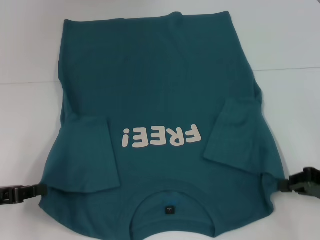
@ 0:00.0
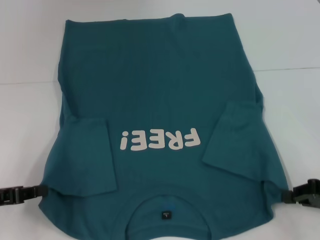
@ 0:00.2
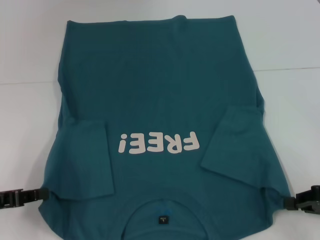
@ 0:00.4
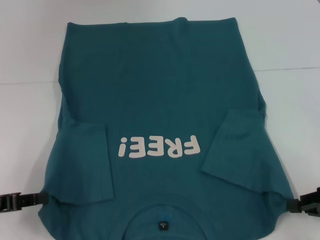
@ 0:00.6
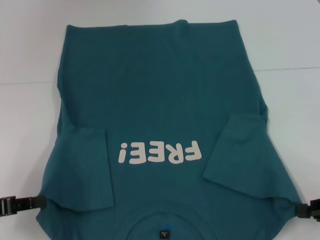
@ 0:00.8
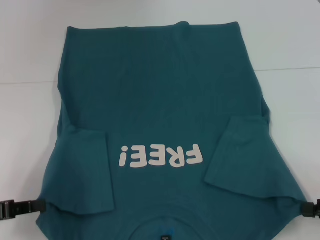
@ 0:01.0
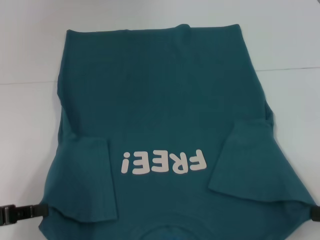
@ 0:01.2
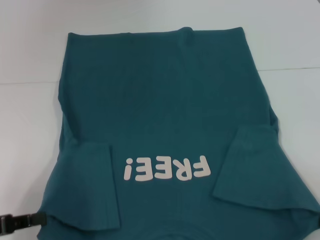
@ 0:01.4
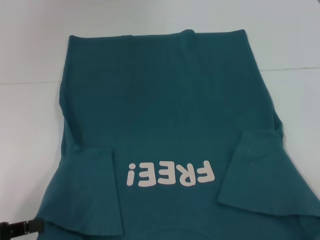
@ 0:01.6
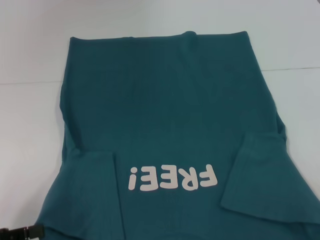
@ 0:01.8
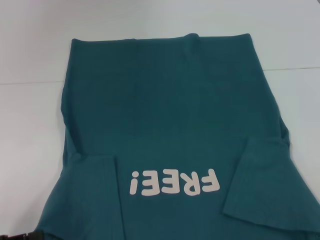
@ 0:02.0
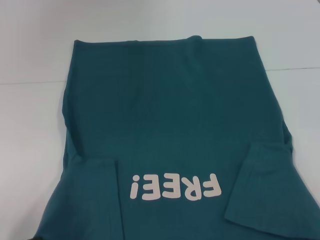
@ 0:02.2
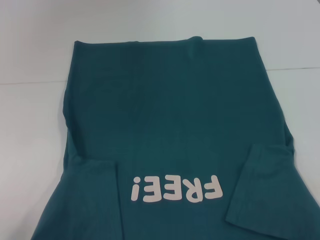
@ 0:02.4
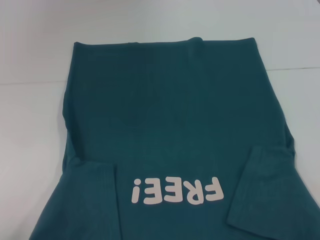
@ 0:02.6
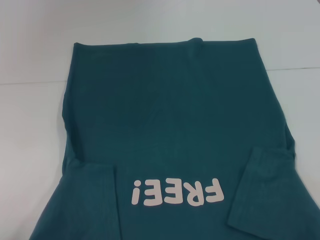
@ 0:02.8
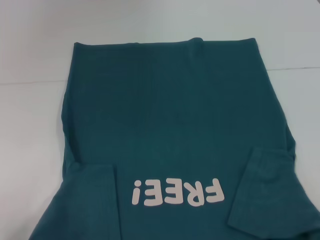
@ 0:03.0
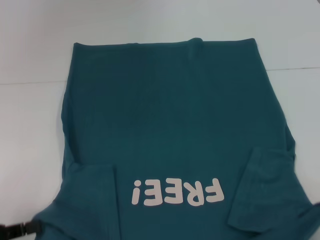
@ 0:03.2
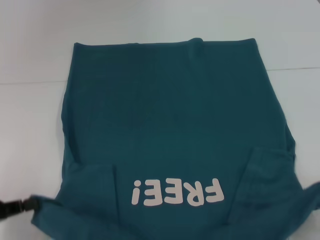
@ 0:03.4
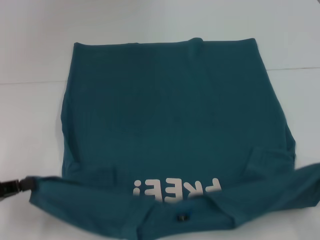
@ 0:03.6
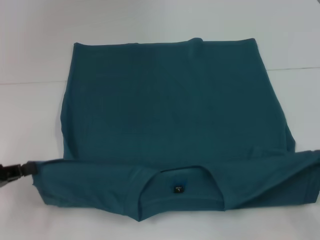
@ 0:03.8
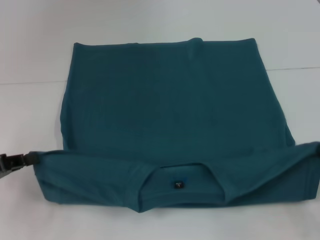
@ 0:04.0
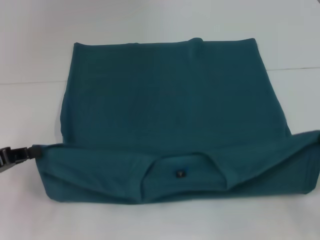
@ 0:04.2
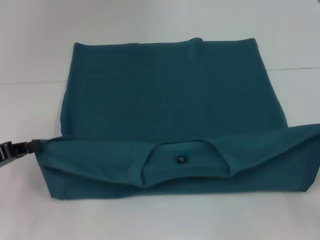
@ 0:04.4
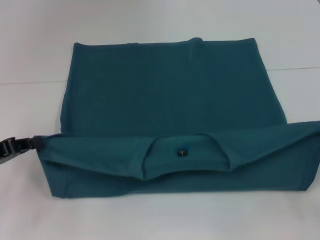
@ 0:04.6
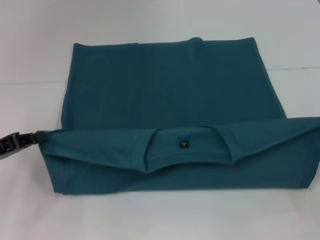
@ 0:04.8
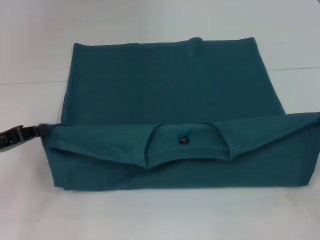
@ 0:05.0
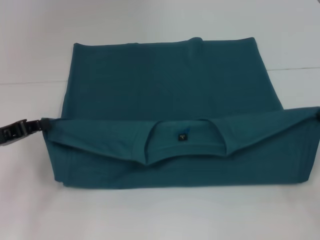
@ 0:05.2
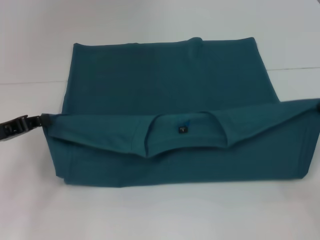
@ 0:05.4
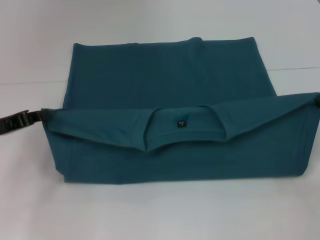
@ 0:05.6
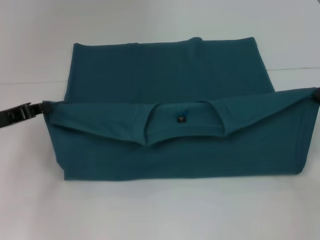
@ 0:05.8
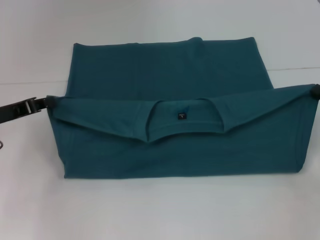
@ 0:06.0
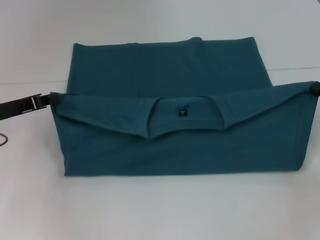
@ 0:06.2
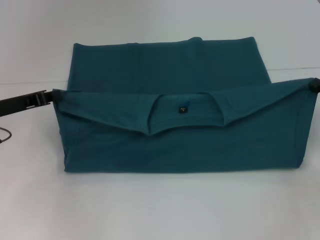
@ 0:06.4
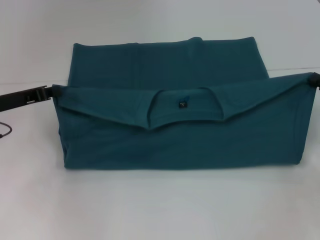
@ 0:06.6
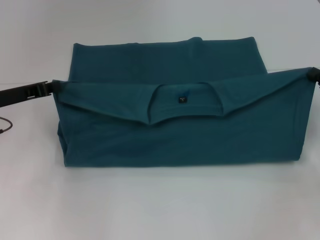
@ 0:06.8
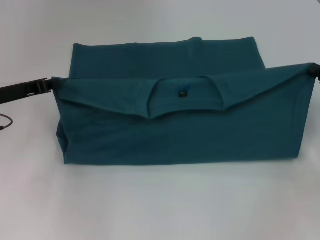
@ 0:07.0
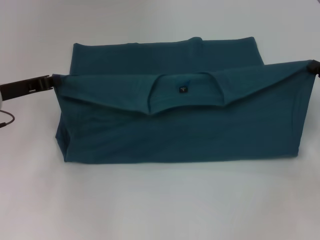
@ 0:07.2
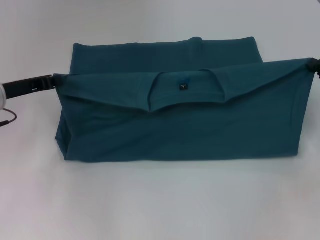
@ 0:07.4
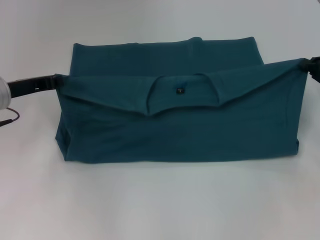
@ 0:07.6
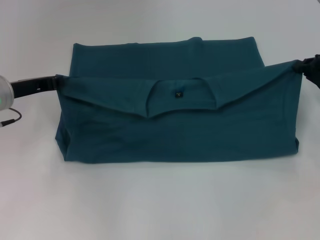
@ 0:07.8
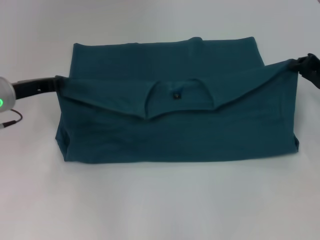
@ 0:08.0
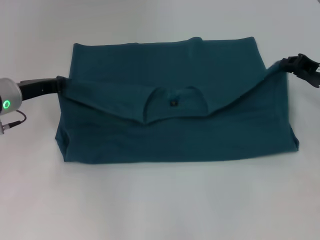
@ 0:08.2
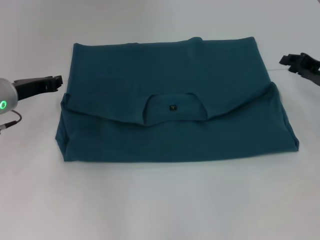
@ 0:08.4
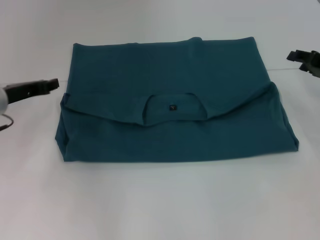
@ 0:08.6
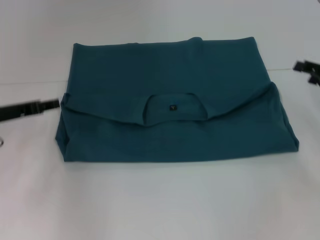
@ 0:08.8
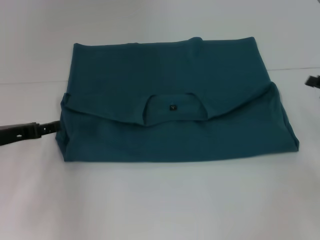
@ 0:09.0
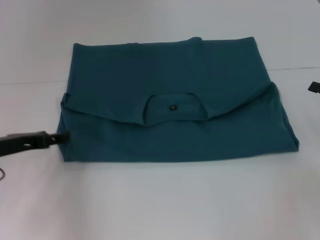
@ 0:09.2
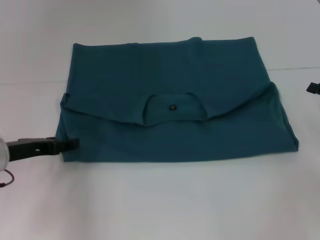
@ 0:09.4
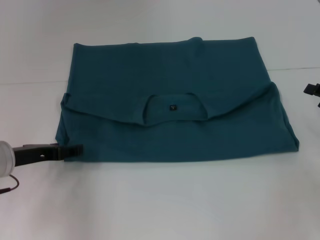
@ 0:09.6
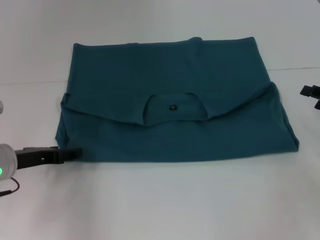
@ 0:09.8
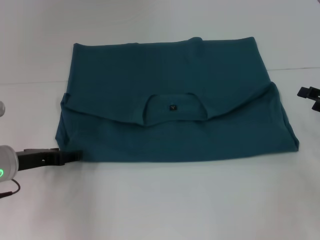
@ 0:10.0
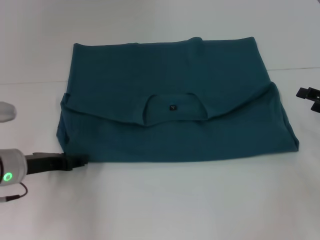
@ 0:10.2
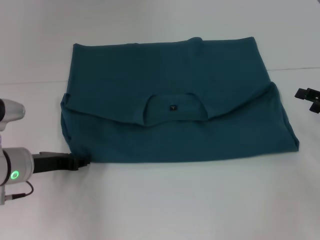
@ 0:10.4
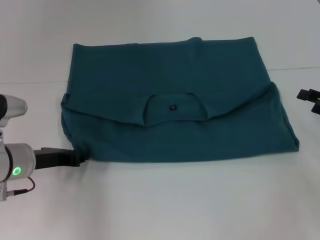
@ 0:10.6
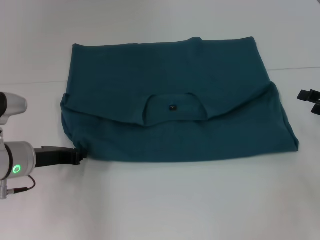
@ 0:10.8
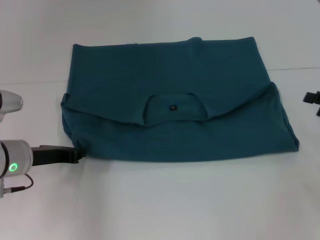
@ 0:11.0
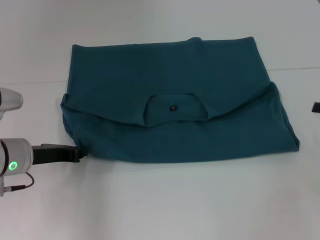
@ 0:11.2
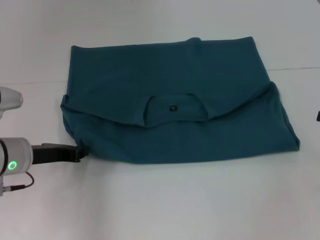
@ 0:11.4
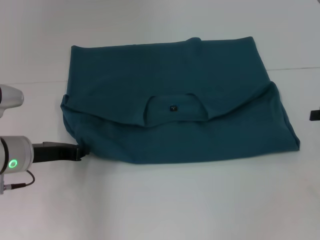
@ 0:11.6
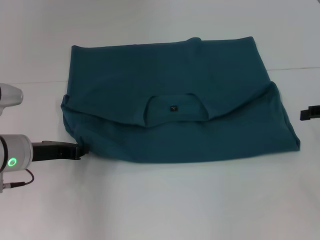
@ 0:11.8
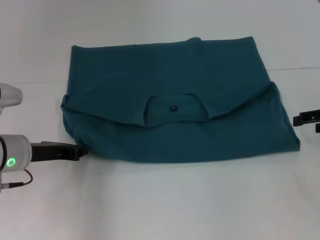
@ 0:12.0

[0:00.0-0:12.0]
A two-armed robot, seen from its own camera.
Step, 0:00.0 to 0:08.2: Fold the clothes to the left.
Step, 0:00.0 to 0:08.2: Fold the clothes to the right.
0:00.0 to 0:01.6: The left gripper is displaced backward by approximately 5 cm. Meanwhile the right gripper moves backward and to the right, some 10 cm.
0:03.0 to 0:04.4: The grippers both shift forward by roughly 10 cm.
0:04.4 to 0:06.0: The grippers both shift forward by about 5 cm.
0:06.0 to 0:07.6: Both grippers move forward, some 5 cm.
0:07.6 to 0:09.0: The left gripper travels backward by roughly 5 cm, and opens up. Meanwhile the right gripper opens.
0:09.0 to 0:10.4: The left gripper travels to the right by about 5 cm.
0:10.4 to 0:12.0: The left gripper closes up. Meanwhile the right gripper shifts about 5 cm upward.

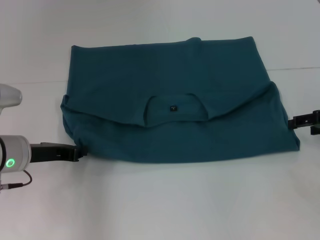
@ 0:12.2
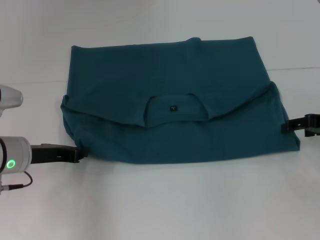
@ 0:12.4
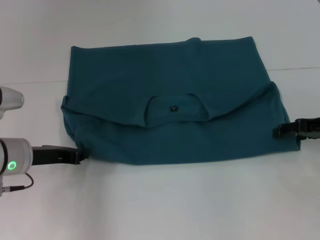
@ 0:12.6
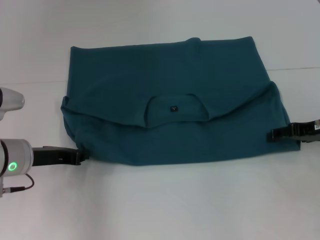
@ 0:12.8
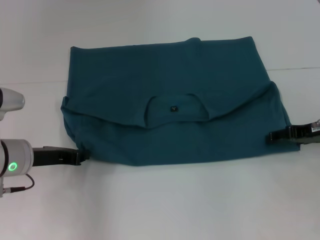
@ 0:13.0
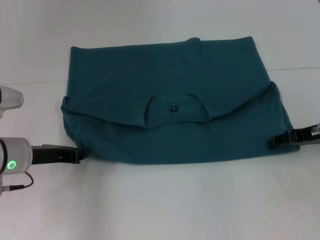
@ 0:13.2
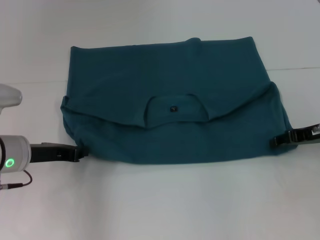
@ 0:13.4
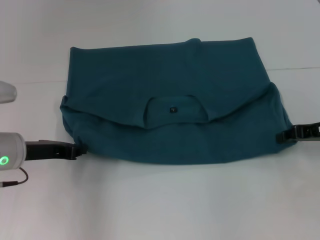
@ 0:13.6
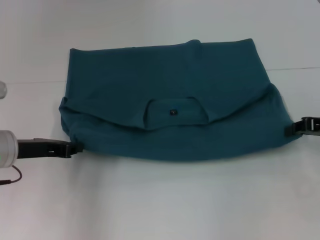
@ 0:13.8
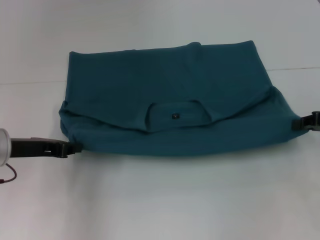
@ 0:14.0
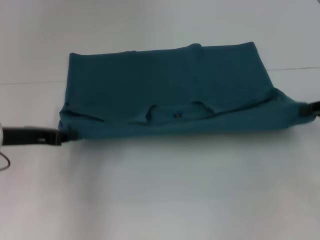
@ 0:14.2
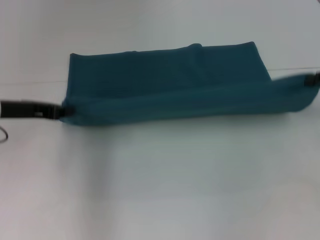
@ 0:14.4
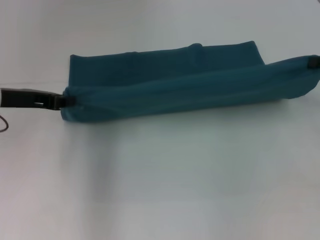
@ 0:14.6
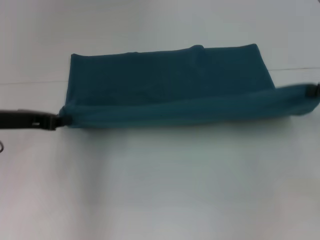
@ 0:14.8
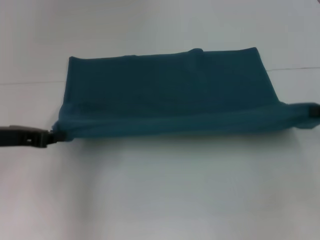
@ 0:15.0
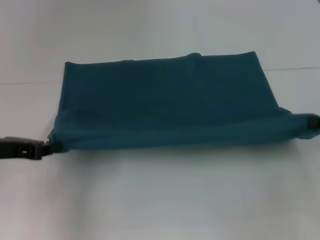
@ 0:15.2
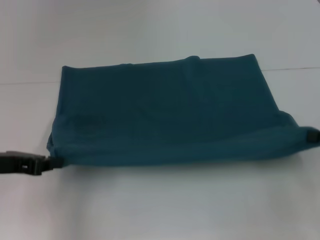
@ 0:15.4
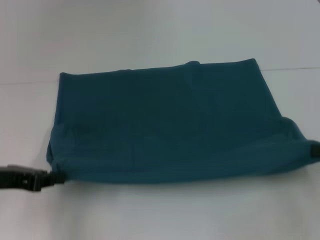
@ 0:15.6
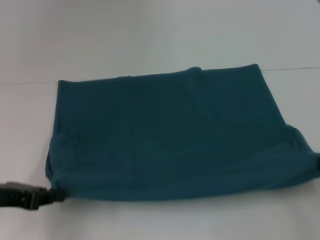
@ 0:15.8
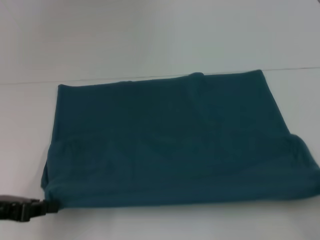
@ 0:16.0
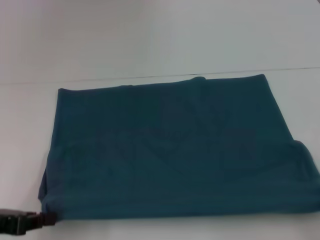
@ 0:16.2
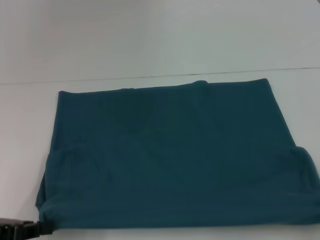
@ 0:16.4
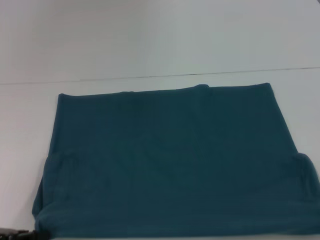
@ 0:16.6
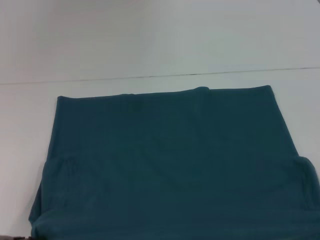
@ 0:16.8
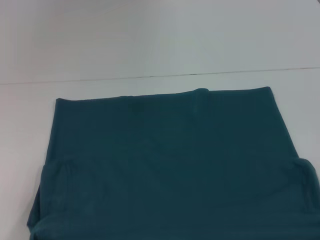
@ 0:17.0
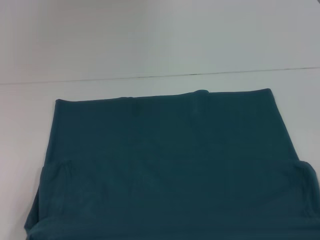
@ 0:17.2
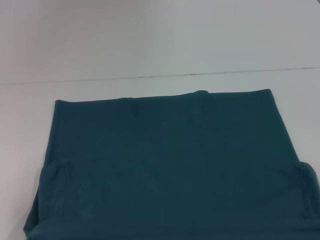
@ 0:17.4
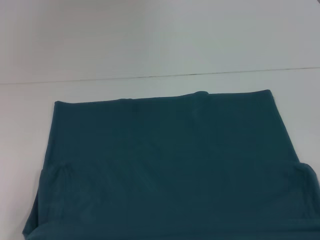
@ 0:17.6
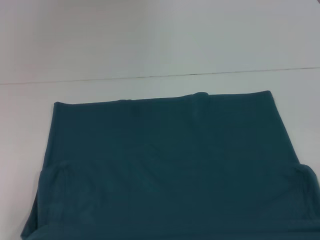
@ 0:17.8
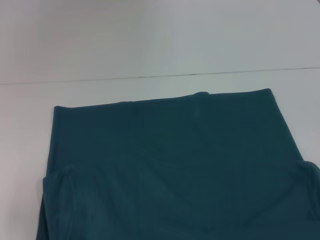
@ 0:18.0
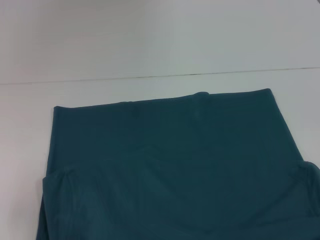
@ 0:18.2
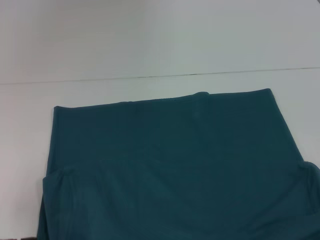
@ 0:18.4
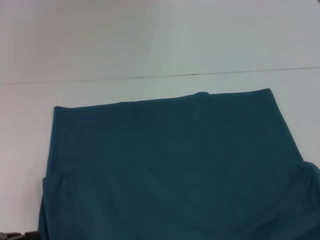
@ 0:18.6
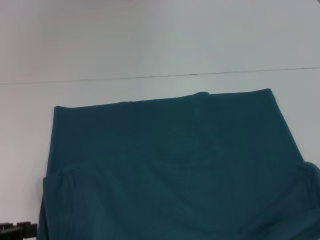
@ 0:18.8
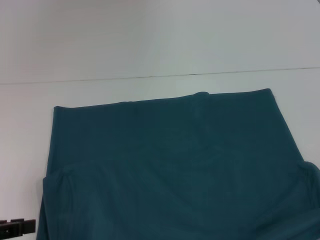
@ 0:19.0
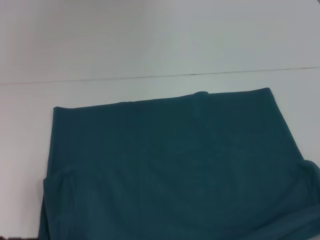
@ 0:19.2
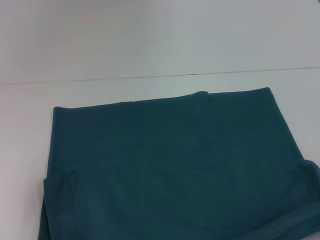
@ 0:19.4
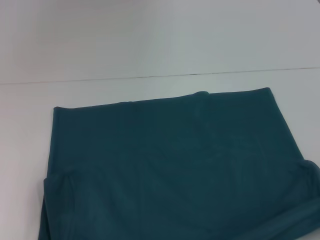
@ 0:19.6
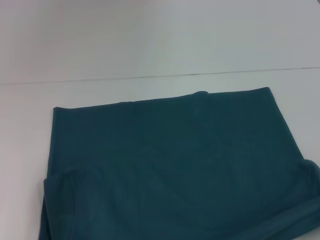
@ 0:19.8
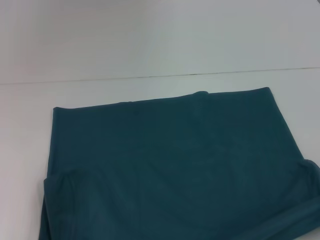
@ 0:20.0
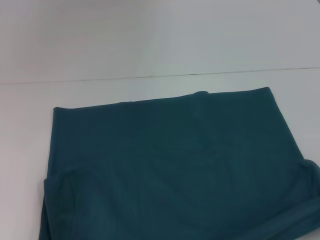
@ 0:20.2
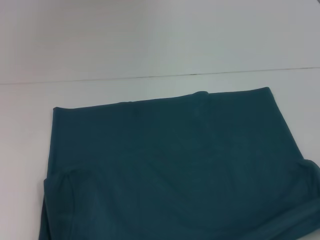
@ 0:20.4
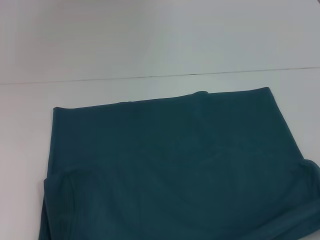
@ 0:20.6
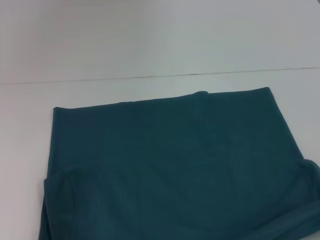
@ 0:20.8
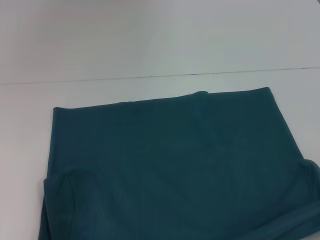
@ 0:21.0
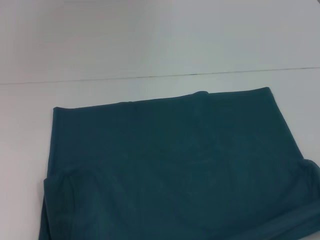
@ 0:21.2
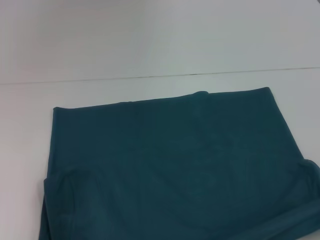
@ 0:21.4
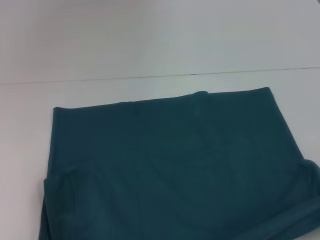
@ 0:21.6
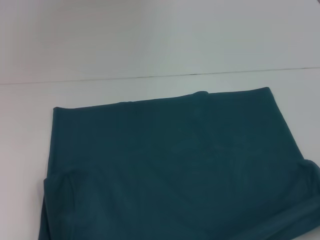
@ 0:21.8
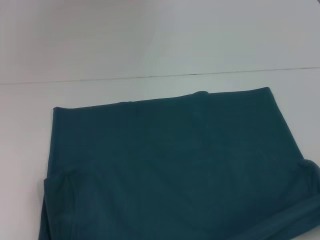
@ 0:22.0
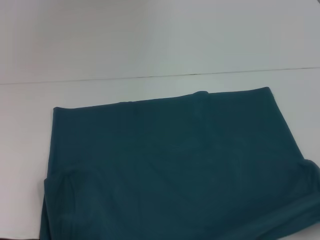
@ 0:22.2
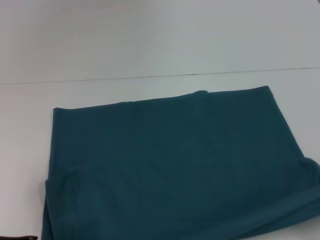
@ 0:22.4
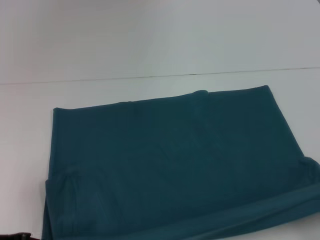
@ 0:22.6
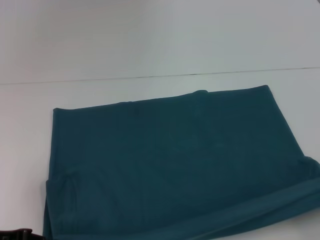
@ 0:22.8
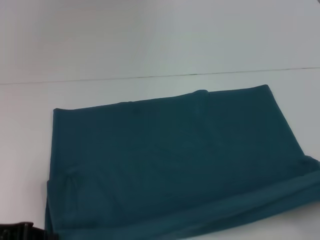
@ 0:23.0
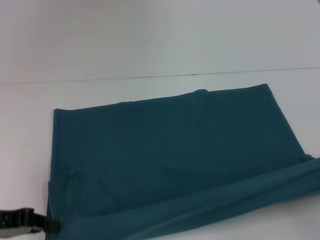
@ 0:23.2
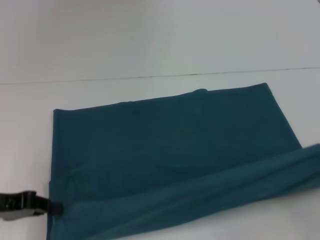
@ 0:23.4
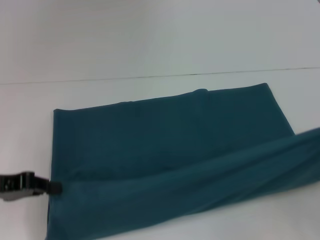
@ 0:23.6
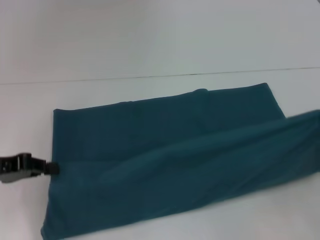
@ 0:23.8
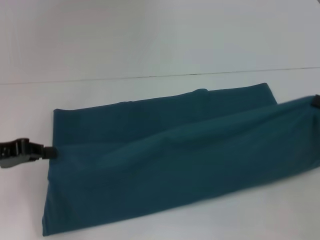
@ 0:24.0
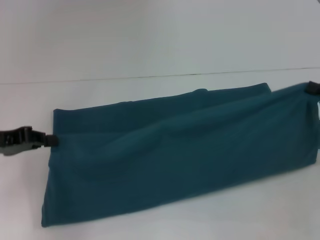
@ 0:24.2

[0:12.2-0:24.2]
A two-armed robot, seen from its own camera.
Step, 0:12.2 to 0:17.4: Pull the clothes with your left hand.
Step, 0:12.2 to 0:17.4: Pull the clothes with your right hand.
0:12.2 to 0:13.8: The right gripper closes its fingers.
0:13.8 to 0:15.2: The right gripper changes place by about 5 cm. Meanwhile the left gripper moves roughly 5 cm.
0:15.2 to 0:16.6: Both grippers move backward, approximately 10 cm.
0:16.6 to 0:18.2: The grippers make only small movements.
0:21.2 to 0:22.6: The left gripper closes.
0:22.6 to 0:24.2: The grippers both shift forward by roughly 10 cm.
